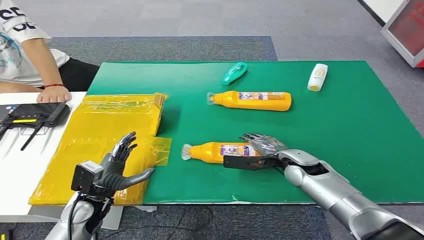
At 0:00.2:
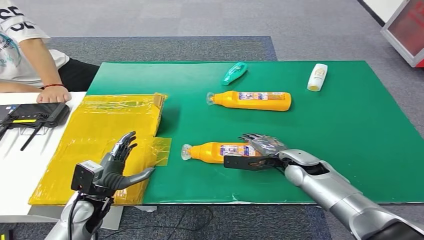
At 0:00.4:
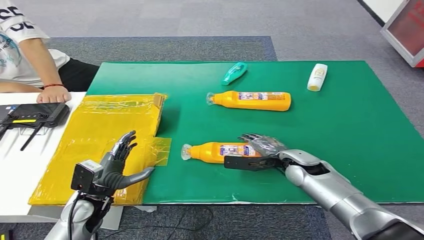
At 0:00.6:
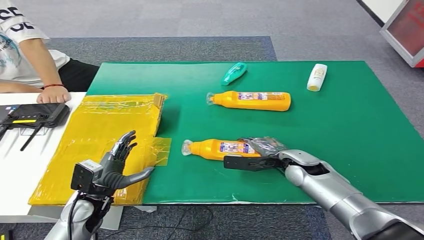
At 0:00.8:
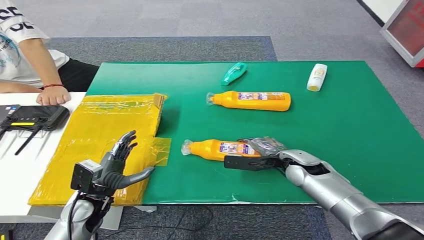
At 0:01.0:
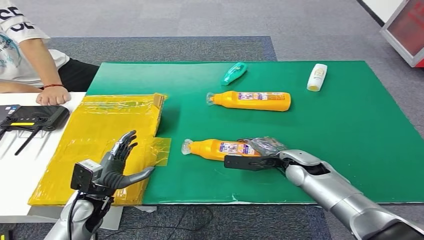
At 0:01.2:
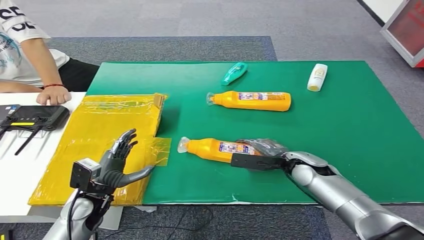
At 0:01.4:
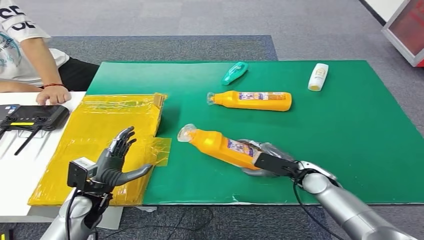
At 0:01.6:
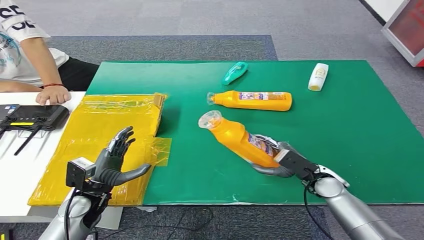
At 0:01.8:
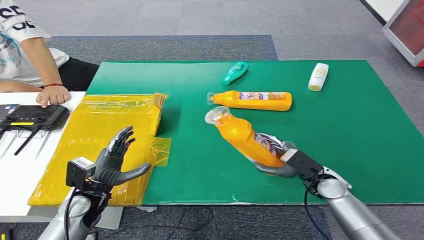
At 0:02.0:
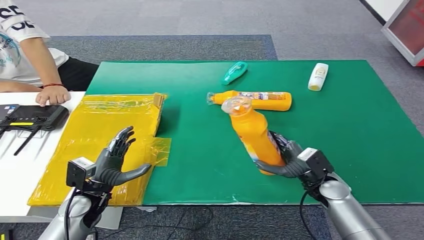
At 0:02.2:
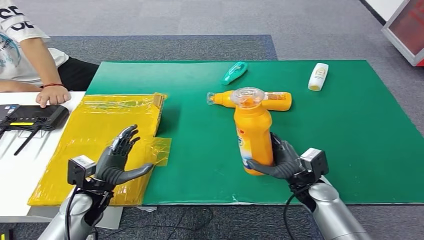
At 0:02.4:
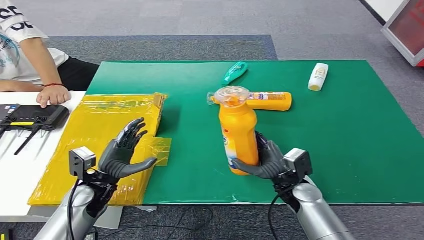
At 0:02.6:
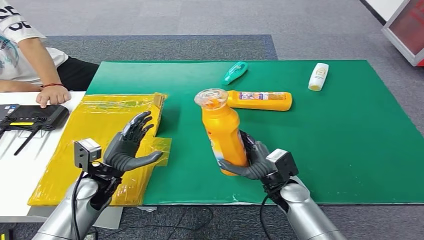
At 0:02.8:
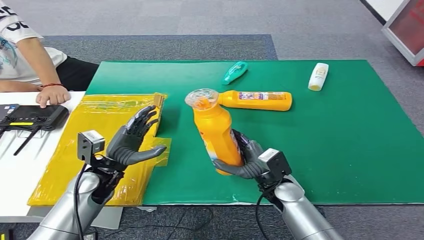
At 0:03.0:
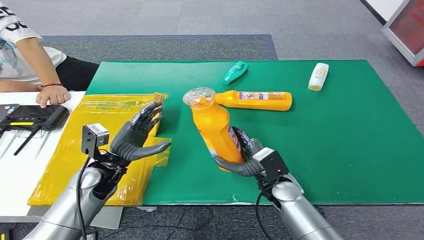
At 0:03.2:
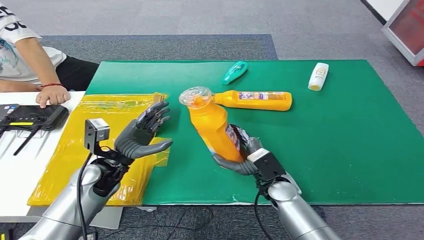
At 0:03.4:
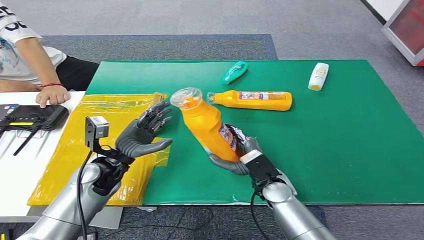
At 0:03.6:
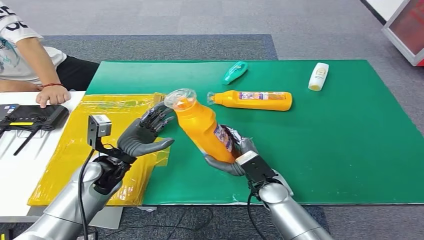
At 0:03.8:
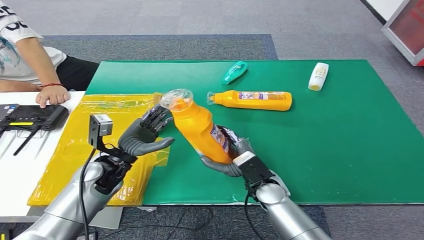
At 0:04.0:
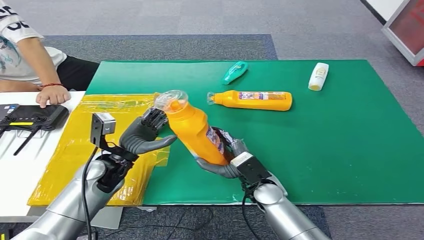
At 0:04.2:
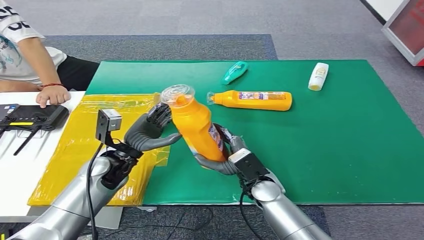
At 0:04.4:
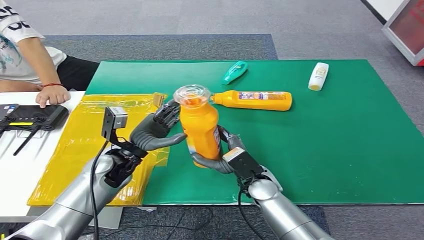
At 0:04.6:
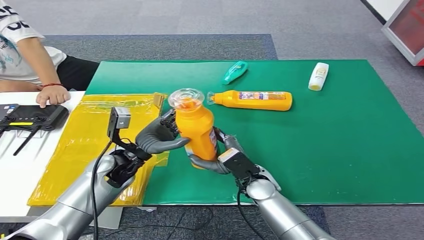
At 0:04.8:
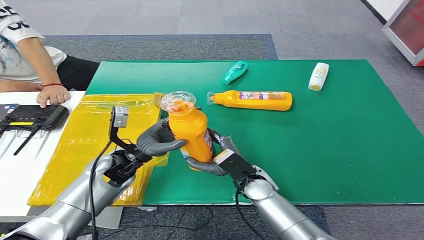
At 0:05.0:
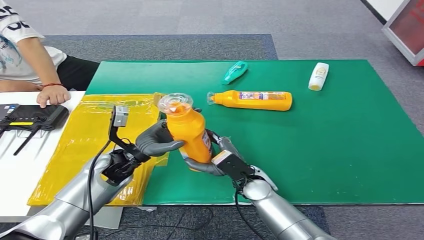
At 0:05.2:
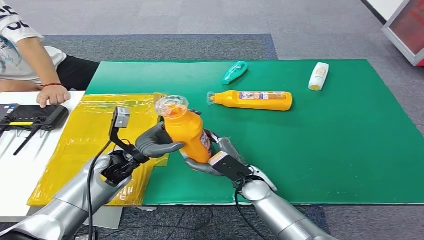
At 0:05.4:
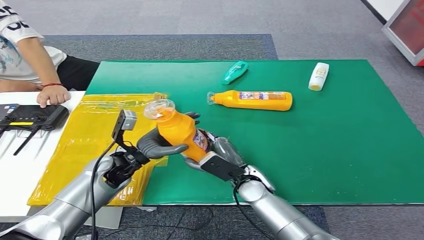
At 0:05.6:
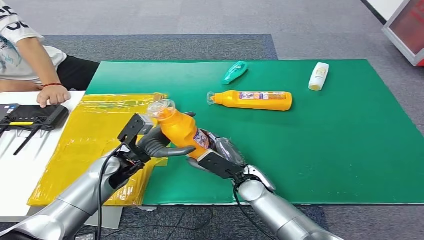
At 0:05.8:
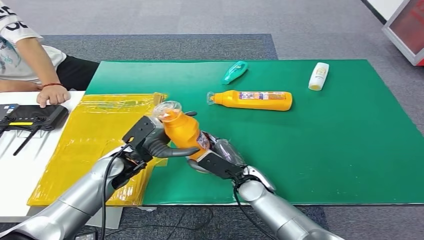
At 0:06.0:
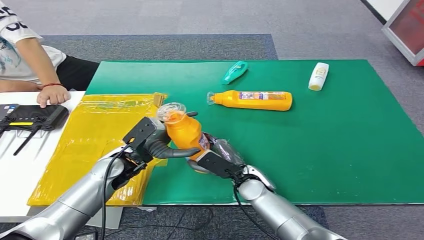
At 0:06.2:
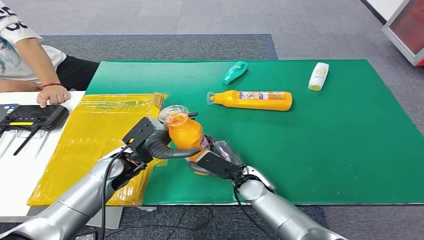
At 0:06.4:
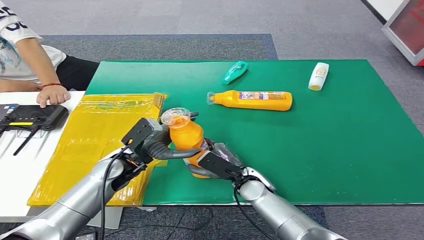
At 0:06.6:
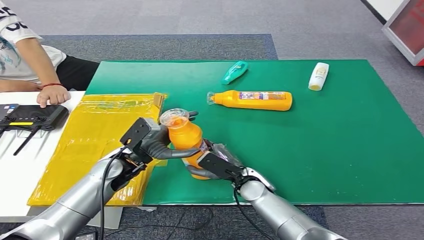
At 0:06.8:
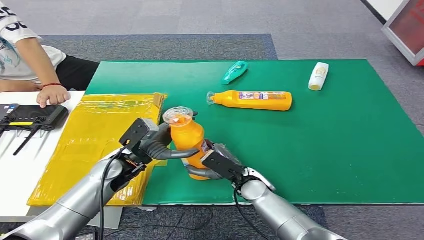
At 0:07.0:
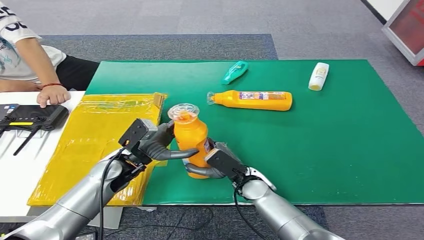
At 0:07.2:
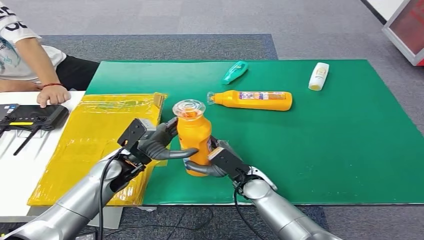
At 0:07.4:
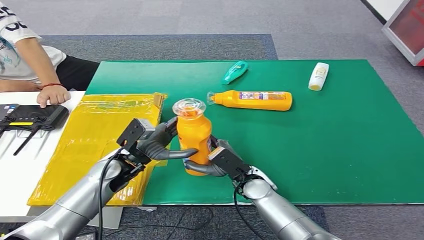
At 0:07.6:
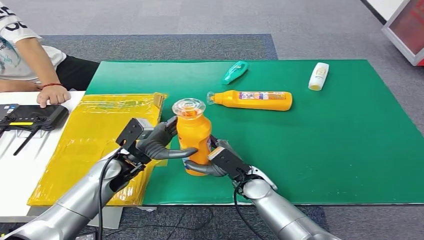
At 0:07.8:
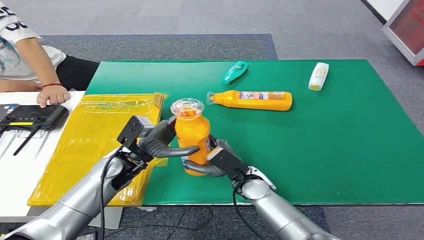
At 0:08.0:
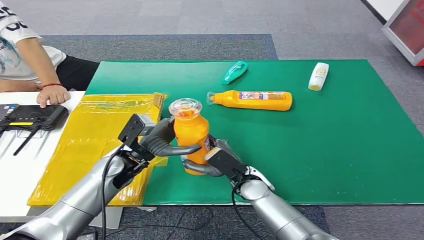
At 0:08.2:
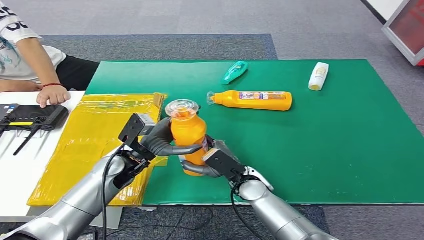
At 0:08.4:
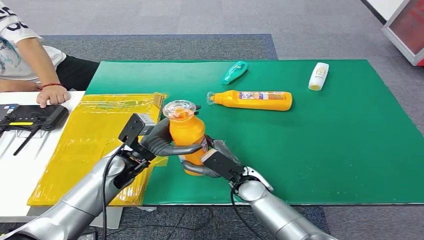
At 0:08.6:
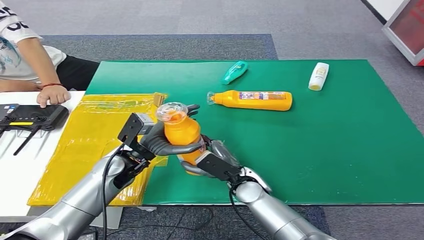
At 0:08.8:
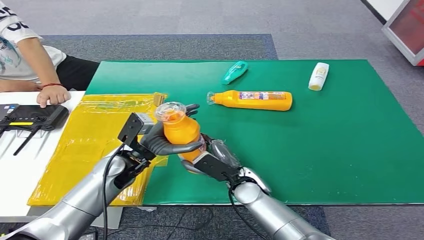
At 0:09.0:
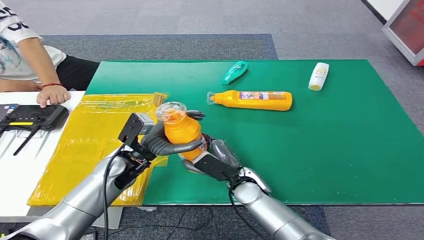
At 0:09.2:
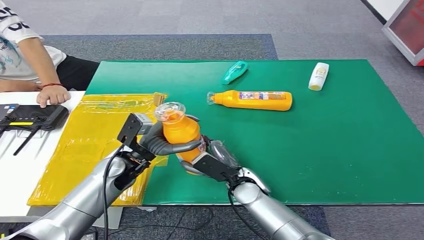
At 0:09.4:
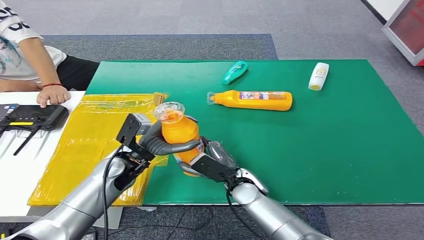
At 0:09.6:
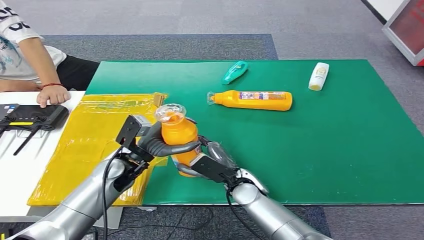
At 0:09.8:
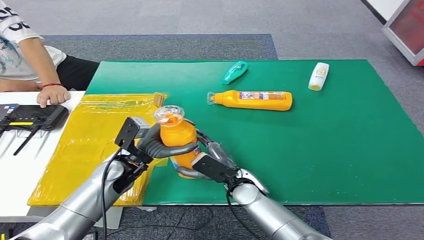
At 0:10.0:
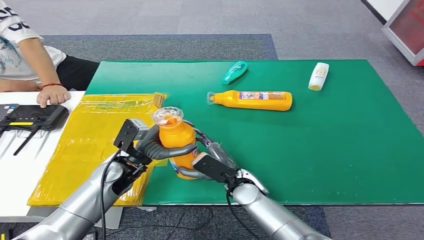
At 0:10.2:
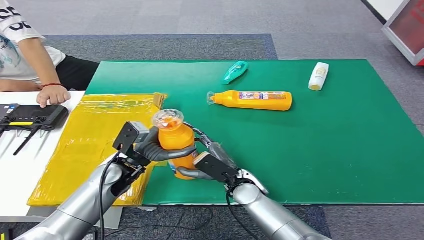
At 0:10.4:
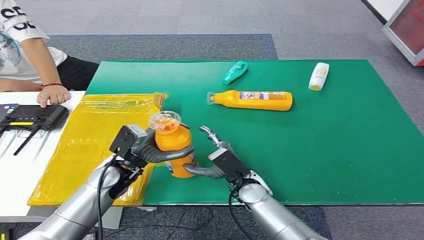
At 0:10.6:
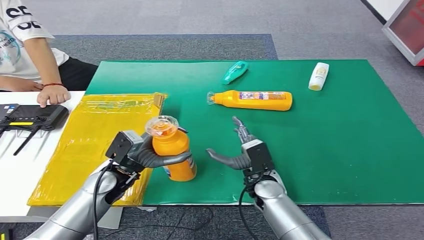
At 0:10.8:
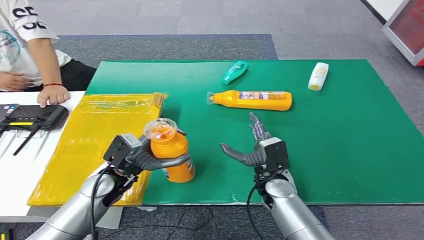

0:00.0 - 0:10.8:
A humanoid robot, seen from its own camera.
Step, 0:00.0 - 0:03.2: Pick up the bottle from the table.
Step, 0:03.4 - 0:10.8: Turn the bottle to the front side.
0:01.6 - 0:03.0: The left hand is displaced upward and forward by approximately 10 cm; the right hand moves to the left, approximately 10 cm.
0:03.0 - 0:04.6: The right hand heads to the left, covering roughly 5 cm.
0:06.2 - 0:09.2: There are only small adjustments of the hands.
0:09.2 - 0:10.8: The right hand shifts some 5 cm to the right.
